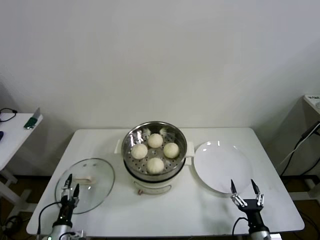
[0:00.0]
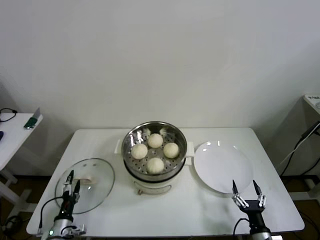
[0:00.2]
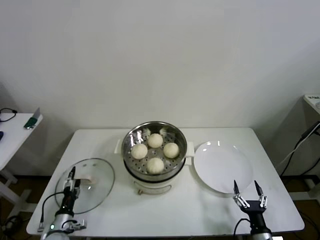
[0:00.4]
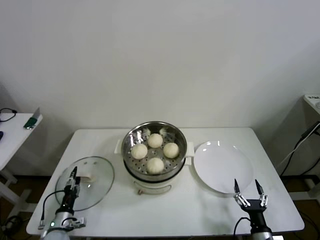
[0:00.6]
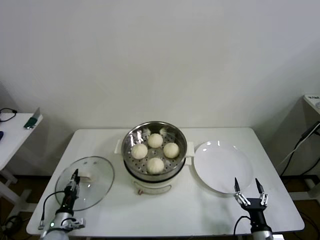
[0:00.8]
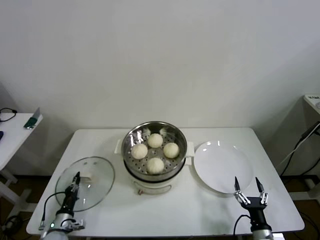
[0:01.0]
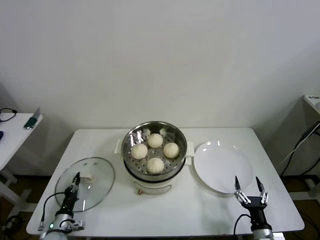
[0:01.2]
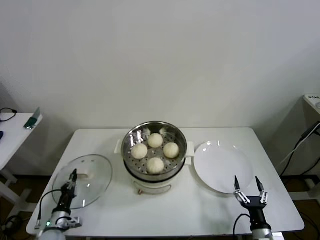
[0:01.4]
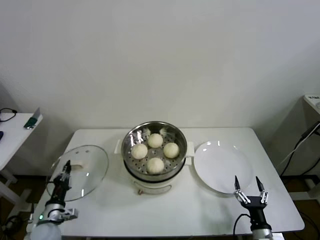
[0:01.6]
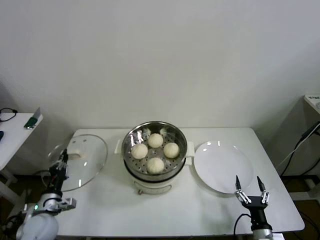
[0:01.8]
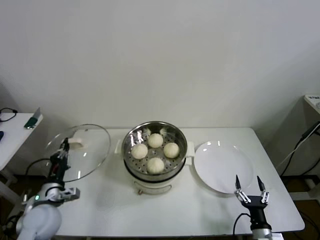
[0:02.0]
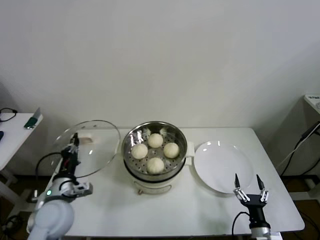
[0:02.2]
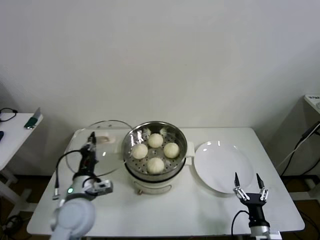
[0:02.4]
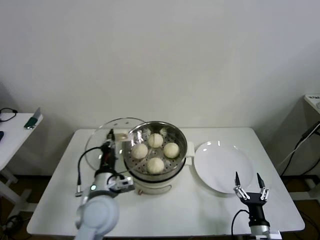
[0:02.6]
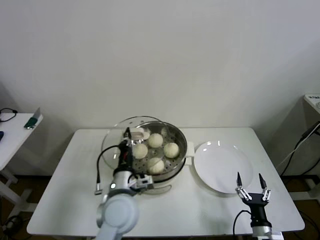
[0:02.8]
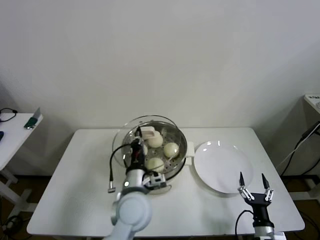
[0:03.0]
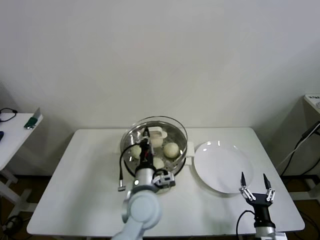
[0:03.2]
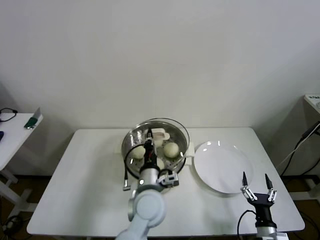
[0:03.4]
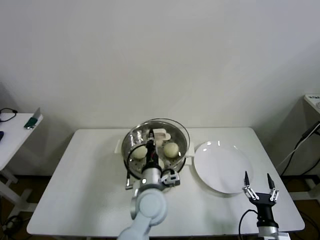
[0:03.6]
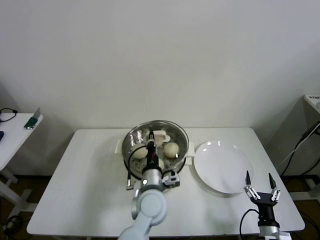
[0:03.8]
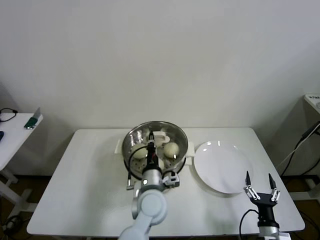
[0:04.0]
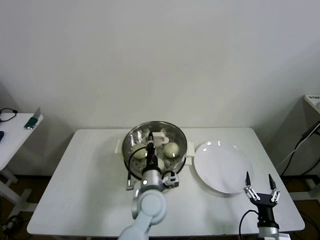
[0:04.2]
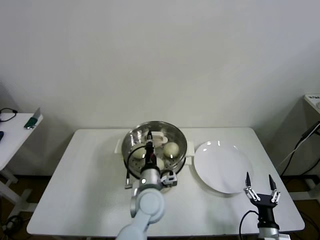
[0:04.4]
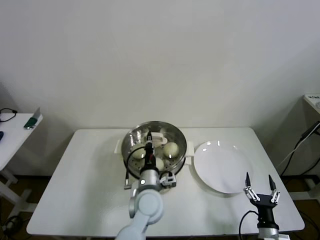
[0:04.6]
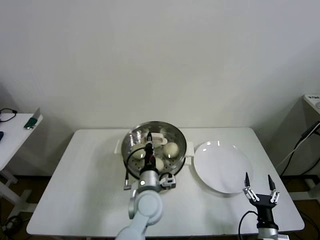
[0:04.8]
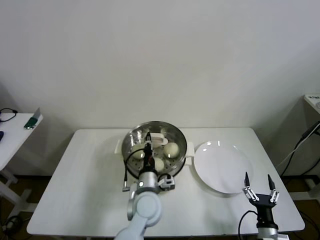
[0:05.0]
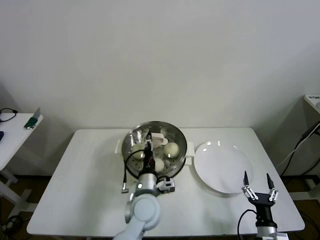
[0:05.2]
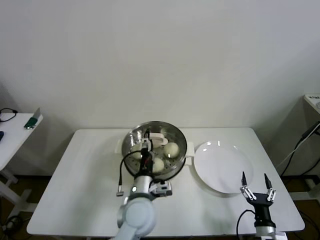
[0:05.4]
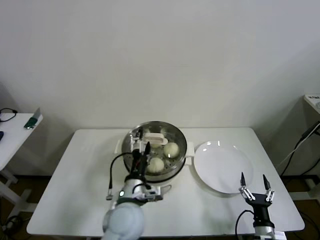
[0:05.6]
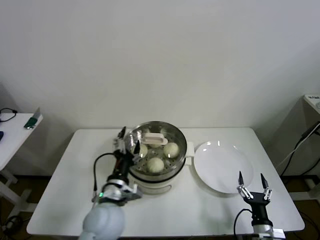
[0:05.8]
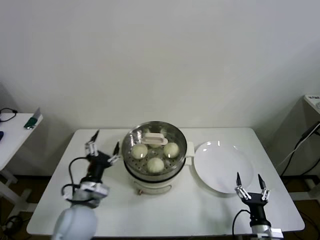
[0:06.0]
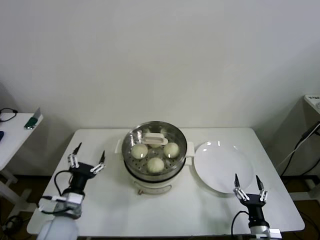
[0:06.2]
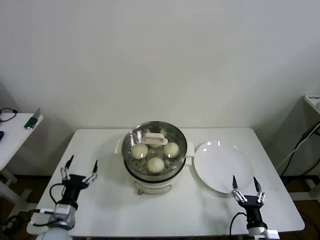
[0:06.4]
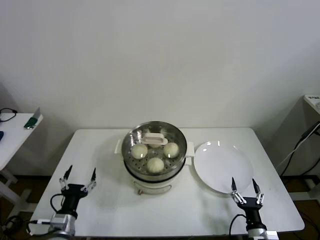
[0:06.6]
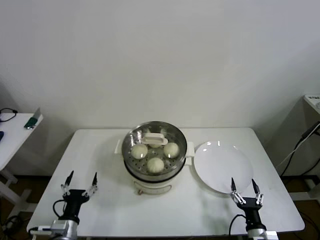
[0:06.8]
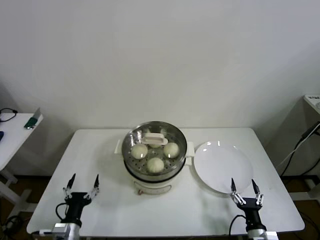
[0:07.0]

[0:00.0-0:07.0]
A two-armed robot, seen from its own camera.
Step, 1.2 to 5.0 s: Place the pot lid on the steamer with left gripper.
0.0 to 1.4 s: The left gripper moves some 5 cm, and closes.
1.4 to 2.8 s: The left gripper goes about 35 cm to the right and upward.
2.8 to 4.2 s: The left gripper is displaced to the right and downward by some 10 cm.
4.2 to 5.6 s: The left gripper changes place by roughly 5 cm, and opens up.
5.6 to 7.0 s: The left gripper travels to the left and downward by approximately 25 cm.

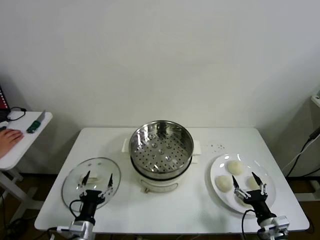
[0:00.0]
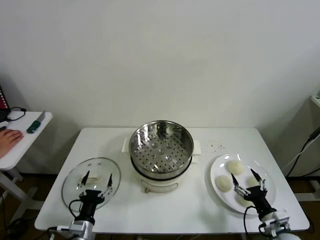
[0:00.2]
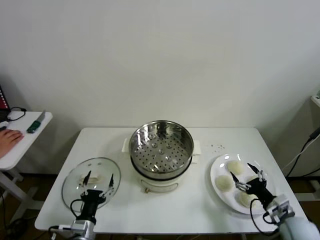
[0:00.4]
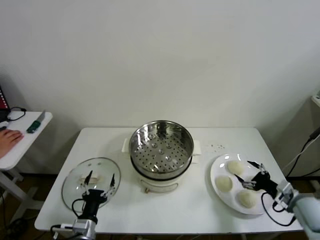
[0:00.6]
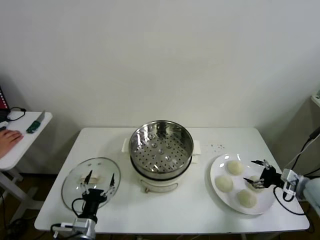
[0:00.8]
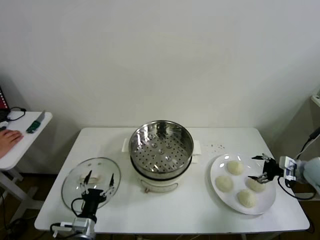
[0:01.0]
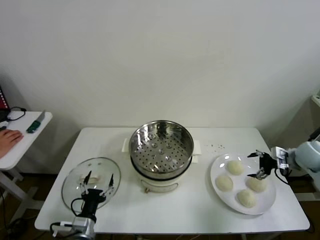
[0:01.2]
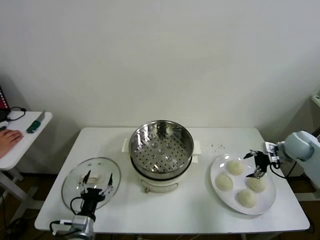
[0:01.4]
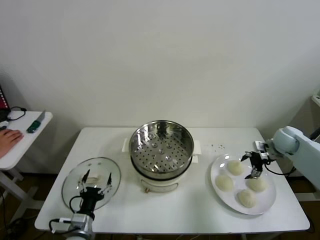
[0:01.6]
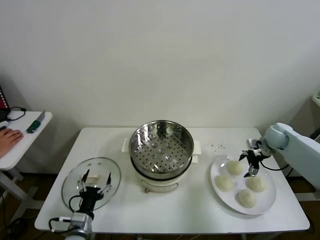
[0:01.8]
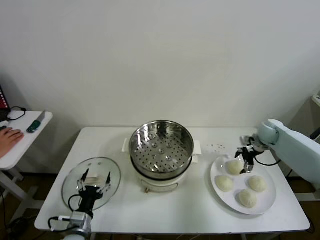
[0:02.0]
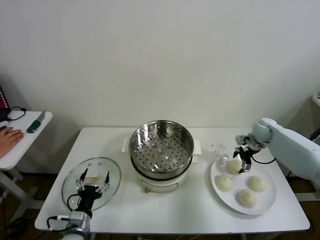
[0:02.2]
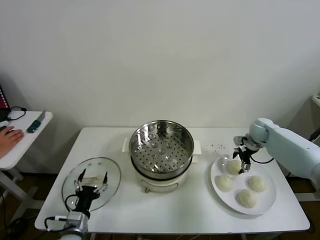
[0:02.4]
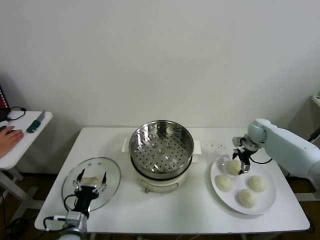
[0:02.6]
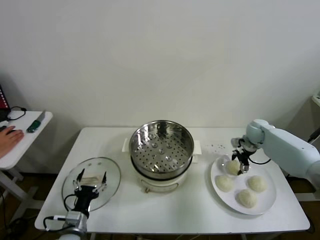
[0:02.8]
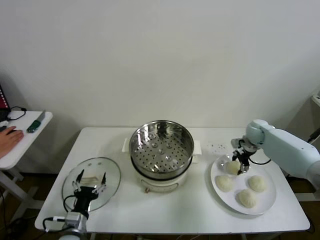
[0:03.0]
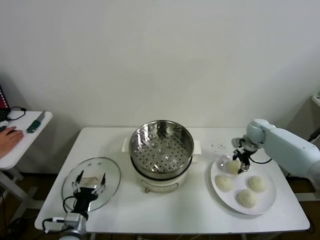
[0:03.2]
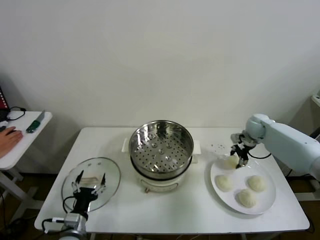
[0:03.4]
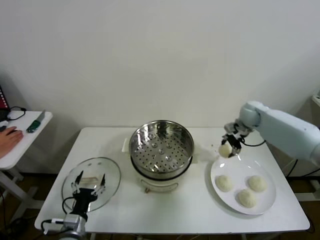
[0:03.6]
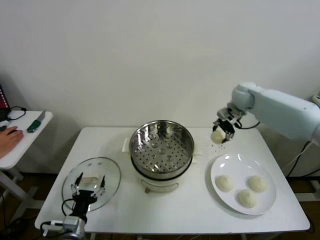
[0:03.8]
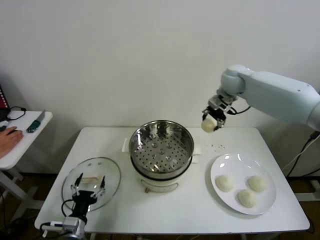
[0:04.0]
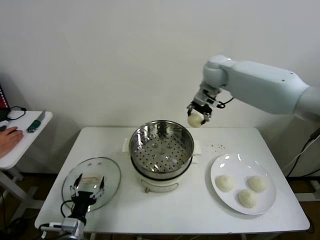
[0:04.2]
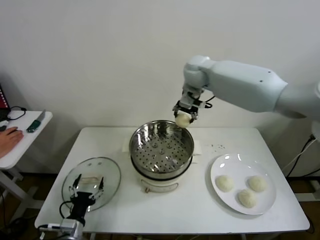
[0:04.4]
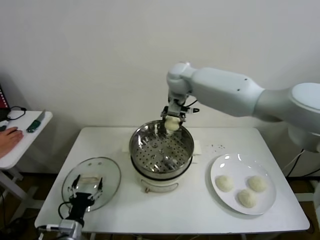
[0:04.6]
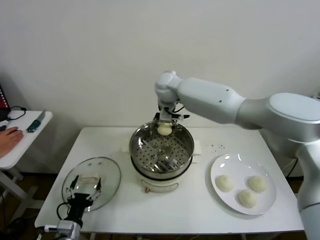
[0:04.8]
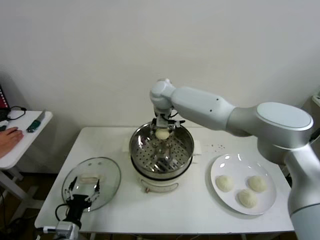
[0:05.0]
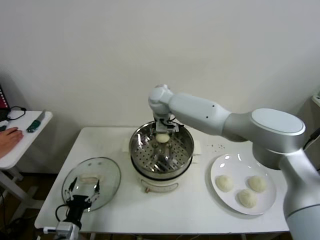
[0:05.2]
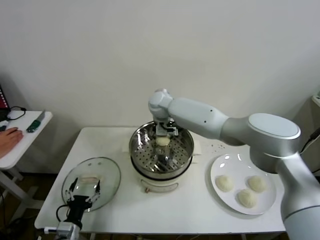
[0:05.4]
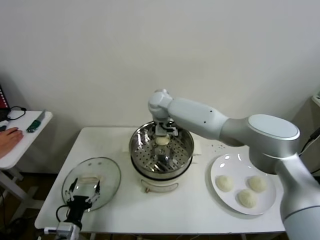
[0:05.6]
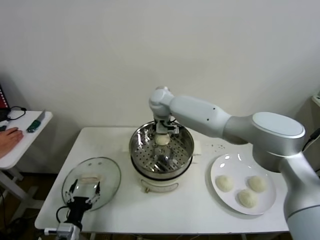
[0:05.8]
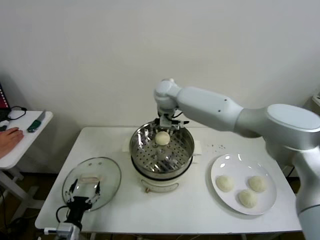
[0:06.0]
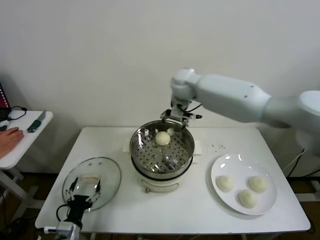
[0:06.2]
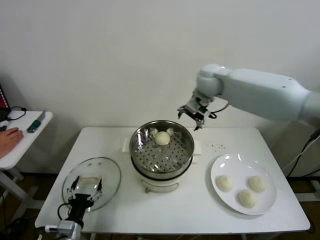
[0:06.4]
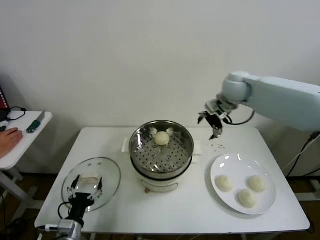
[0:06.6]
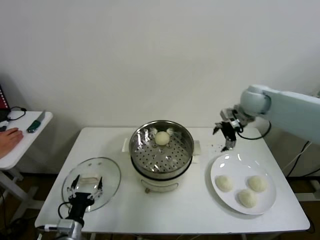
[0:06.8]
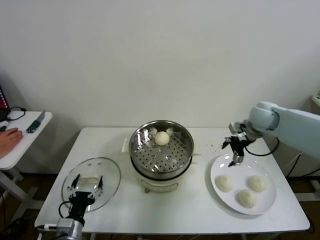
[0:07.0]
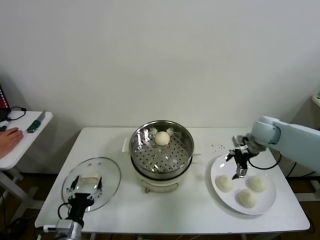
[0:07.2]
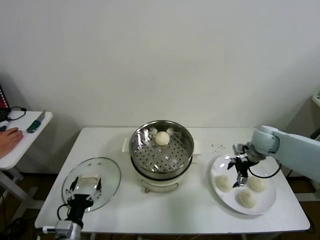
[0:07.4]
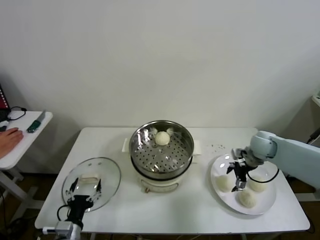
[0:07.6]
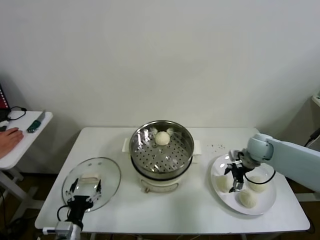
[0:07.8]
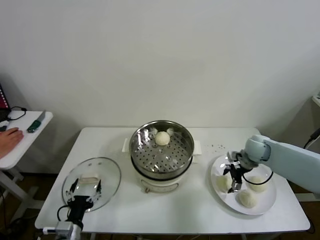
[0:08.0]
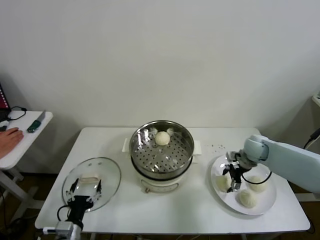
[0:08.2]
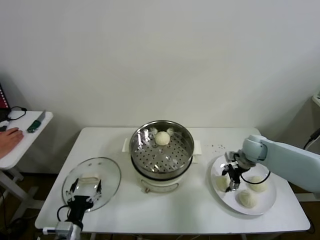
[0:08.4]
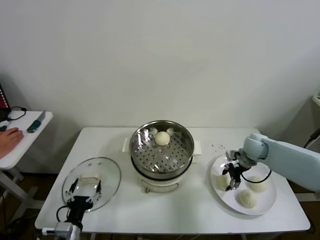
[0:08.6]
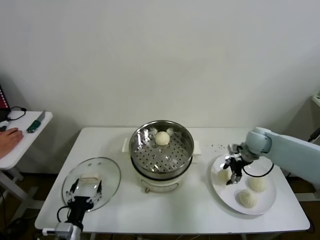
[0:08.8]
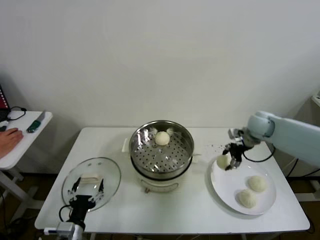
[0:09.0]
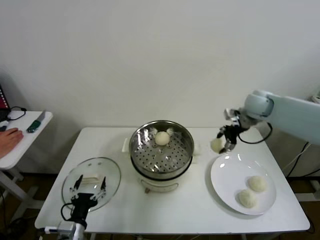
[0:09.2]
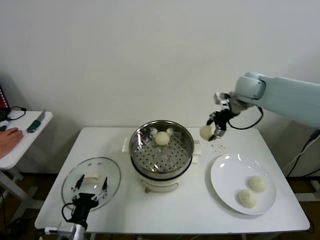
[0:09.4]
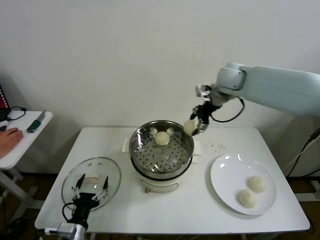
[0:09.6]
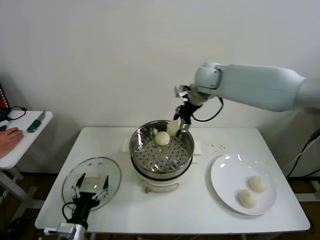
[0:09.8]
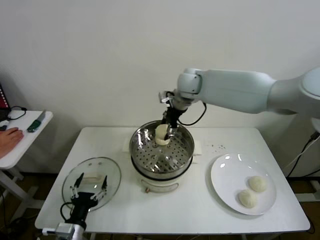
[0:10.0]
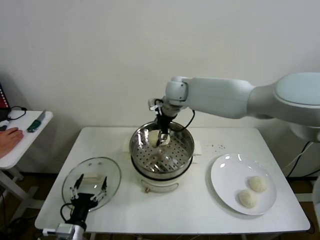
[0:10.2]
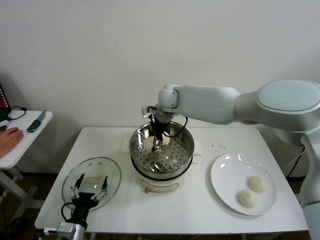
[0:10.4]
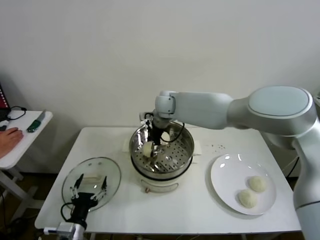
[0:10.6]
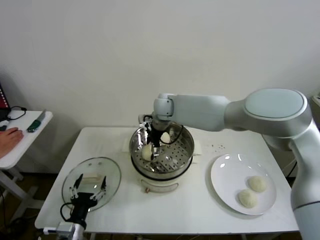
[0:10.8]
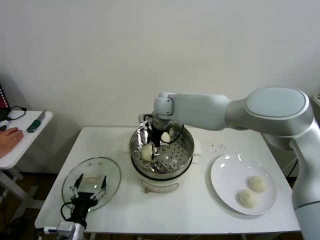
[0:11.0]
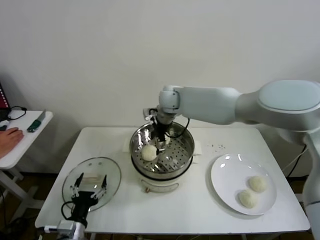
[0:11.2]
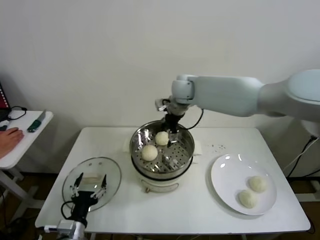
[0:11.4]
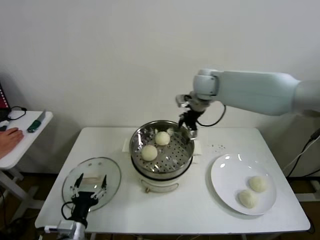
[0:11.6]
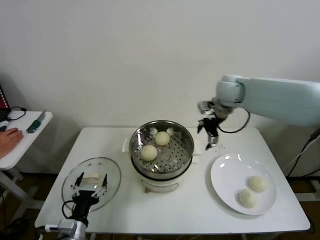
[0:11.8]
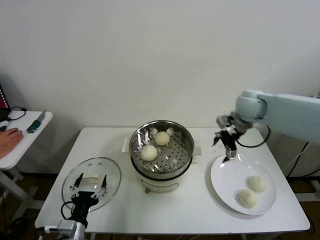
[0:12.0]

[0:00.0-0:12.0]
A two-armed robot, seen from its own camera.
Step, 0.0 to 2.8 s: Grasp the baozi in the plate with right gripper.
Step, 3.0 to 5.4 s: Place the baozi on the steamer with right gripper.
Step, 5.6 to 8.4 s: Grasp the baozi in the plate with right gripper.
Step, 8.6 to 10.6 s: Place the baozi on the steamer with right gripper.
1.6 to 3.0 s: The right gripper is displaced to the left and forward by some 10 cm, and closes.
3.0 to 4.4 s: The right gripper is displaced to the left and upward by some 40 cm.
4.4 to 6.0 s: The right gripper opens.
6.0 to 7.6 s: The right gripper shifts roughly 40 cm to the right and downward.
7.6 to 9.0 s: The right gripper heads upward and forward, covering about 10 cm, and closes up.
9.0 to 10.4 s: The right gripper shifts about 35 cm to the left.
10.4 to 12.0 s: The right gripper goes some 30 cm to the right, and opens up.

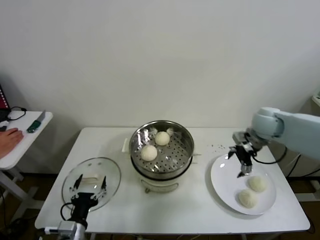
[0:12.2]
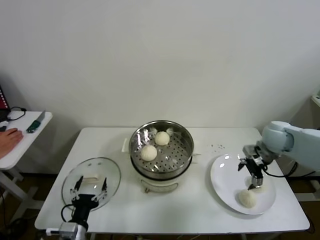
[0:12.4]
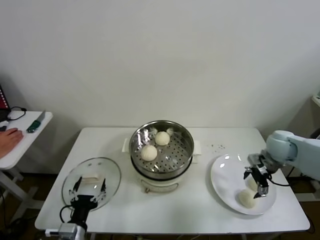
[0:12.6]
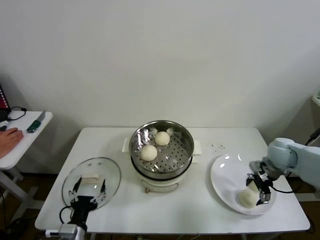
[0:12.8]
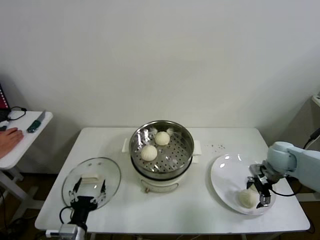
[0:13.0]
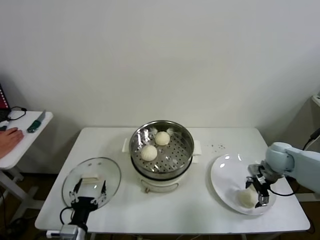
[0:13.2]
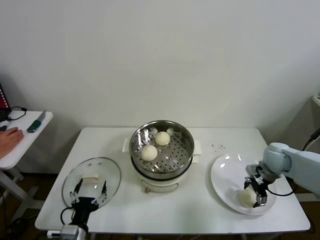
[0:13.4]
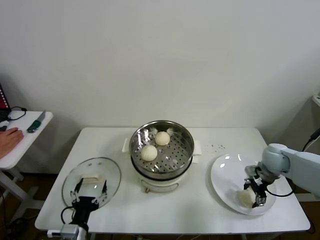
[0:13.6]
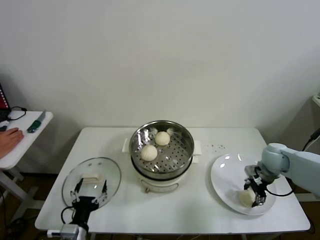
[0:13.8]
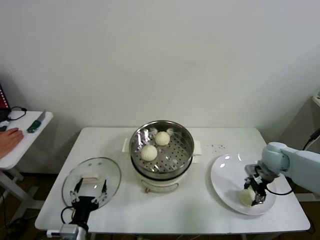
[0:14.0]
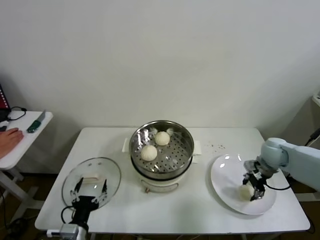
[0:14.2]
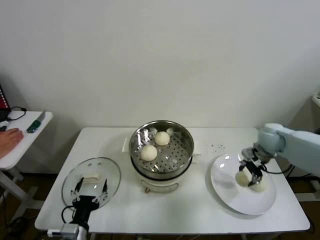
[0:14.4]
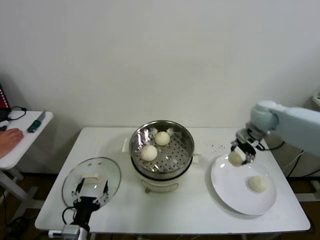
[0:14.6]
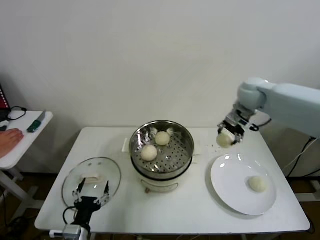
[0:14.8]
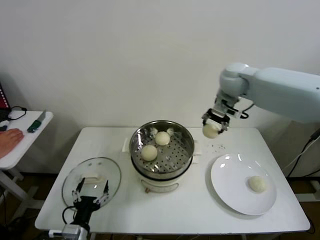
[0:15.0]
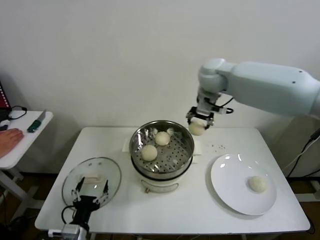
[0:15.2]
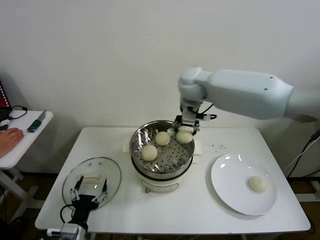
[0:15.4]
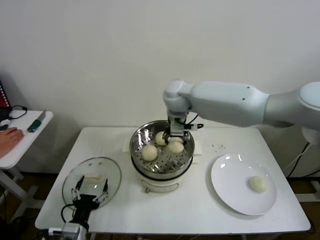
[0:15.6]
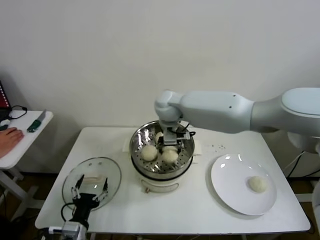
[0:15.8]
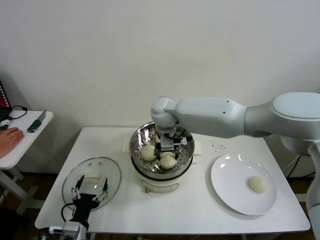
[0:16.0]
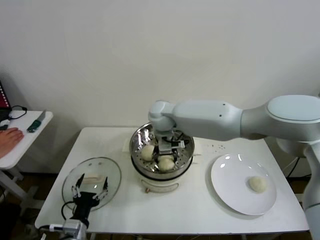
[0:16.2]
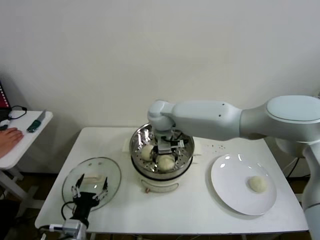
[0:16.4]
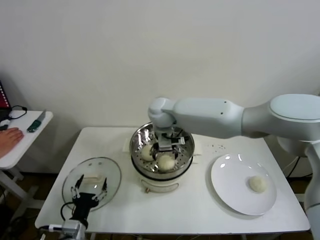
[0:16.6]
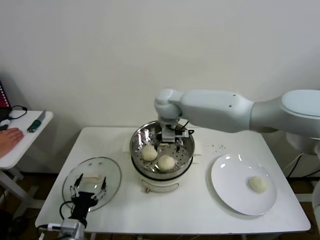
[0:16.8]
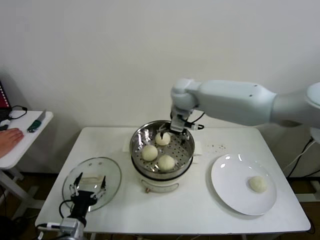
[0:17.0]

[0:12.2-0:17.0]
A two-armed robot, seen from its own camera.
Step, 13.6 to 16.2 s: Place the baozi on the steamer with right gripper.
12.2 to 13.8 s: The right gripper is displaced downward by roughly 10 cm, and closes its fingers.
13.8 to 15.4 s: The right gripper travels to the left and upward by some 40 cm.
15.4 to 17.0 s: The right gripper goes to the left and returns, about 10 cm each way, and opens up.
